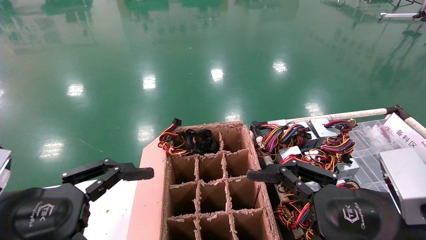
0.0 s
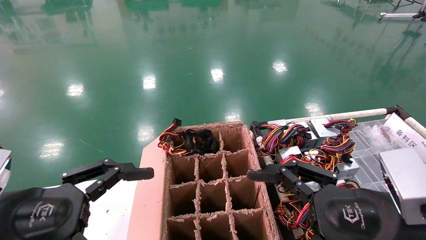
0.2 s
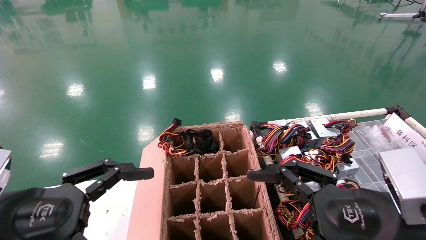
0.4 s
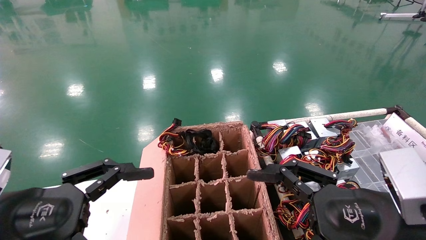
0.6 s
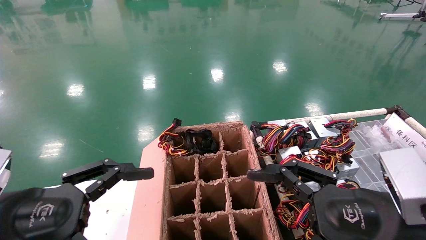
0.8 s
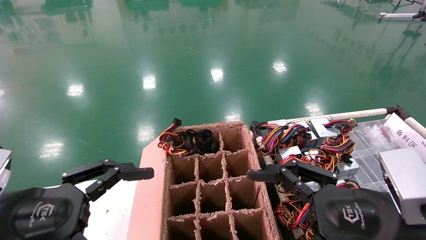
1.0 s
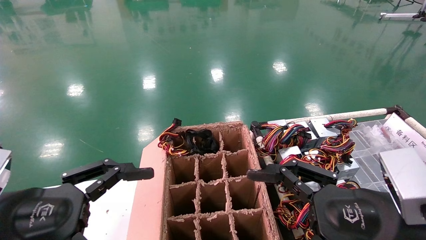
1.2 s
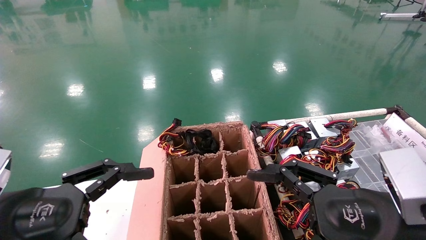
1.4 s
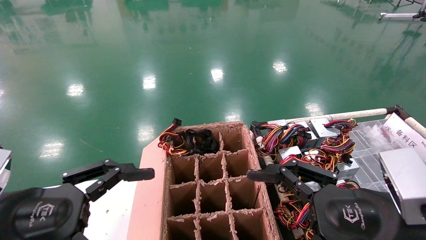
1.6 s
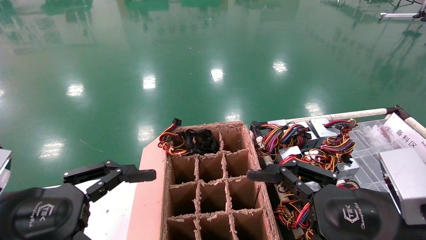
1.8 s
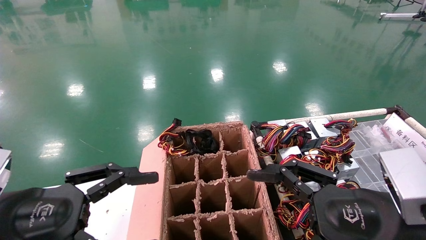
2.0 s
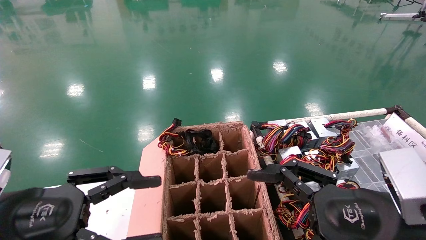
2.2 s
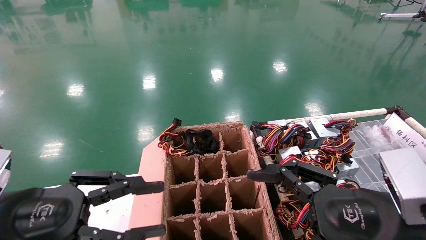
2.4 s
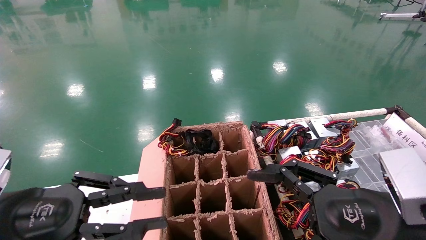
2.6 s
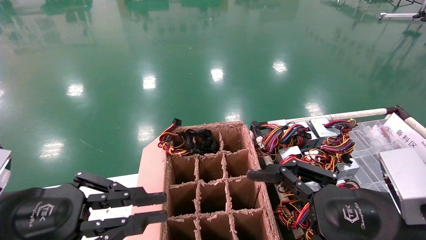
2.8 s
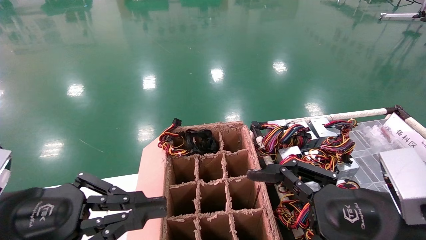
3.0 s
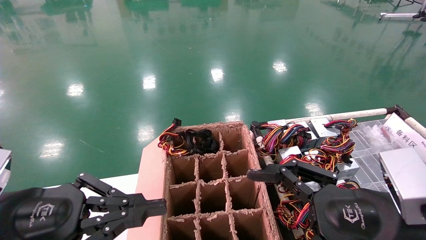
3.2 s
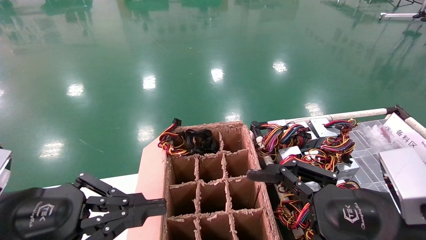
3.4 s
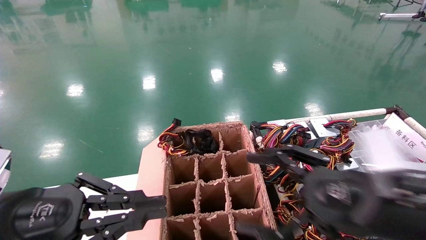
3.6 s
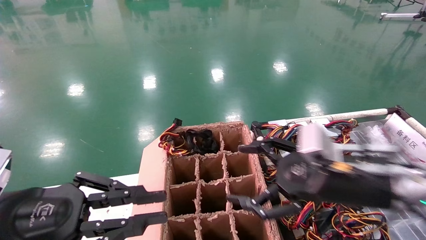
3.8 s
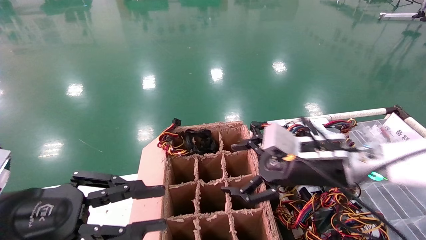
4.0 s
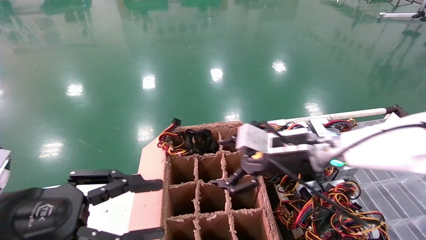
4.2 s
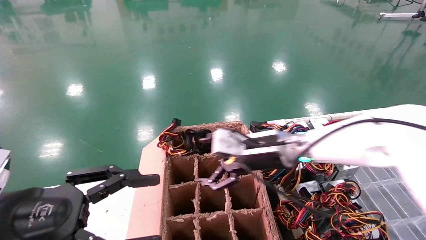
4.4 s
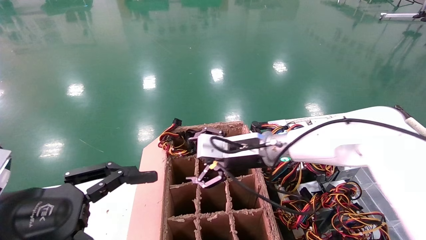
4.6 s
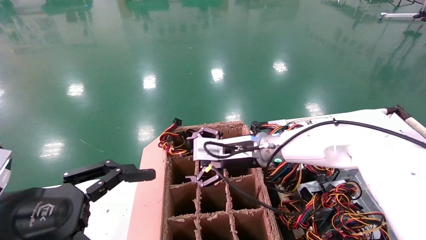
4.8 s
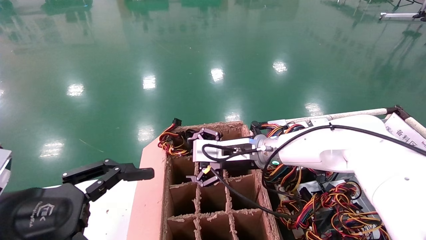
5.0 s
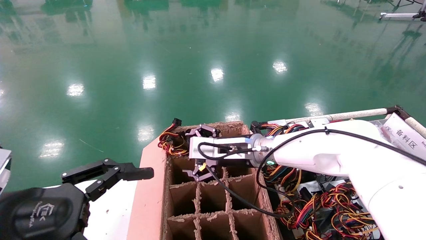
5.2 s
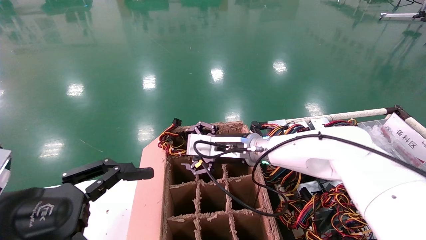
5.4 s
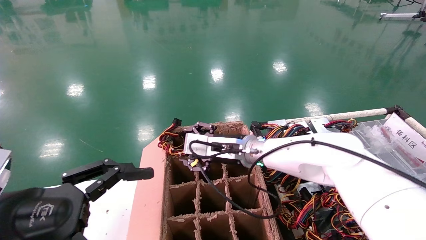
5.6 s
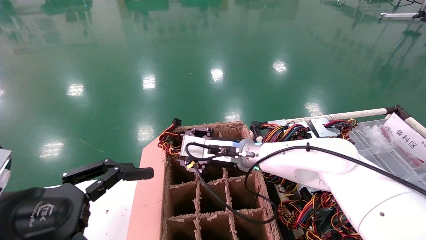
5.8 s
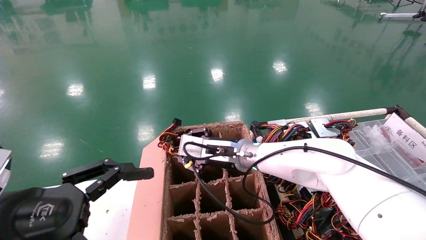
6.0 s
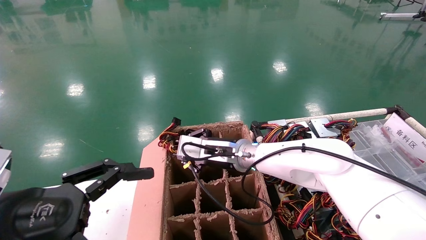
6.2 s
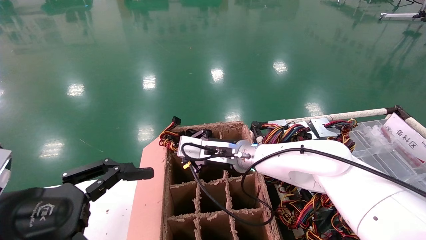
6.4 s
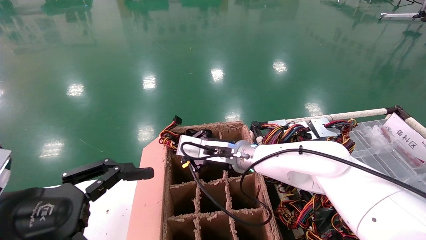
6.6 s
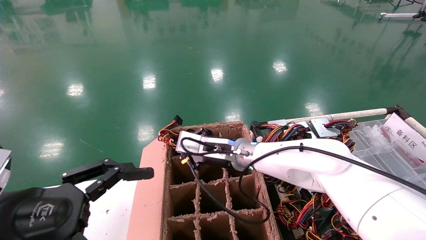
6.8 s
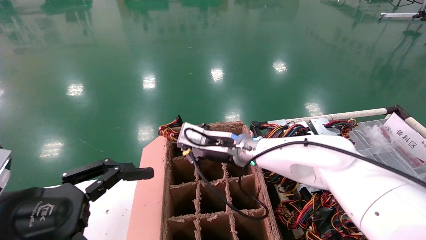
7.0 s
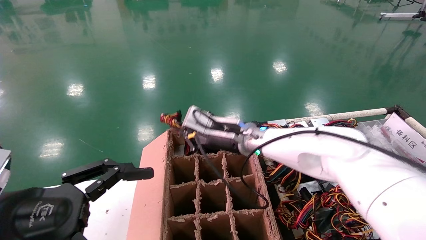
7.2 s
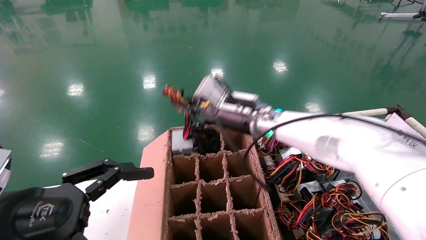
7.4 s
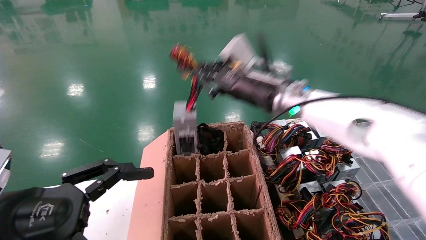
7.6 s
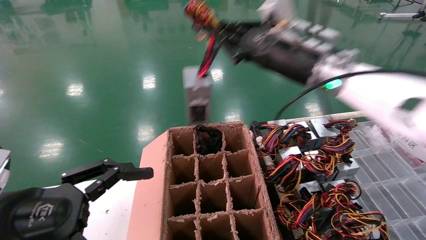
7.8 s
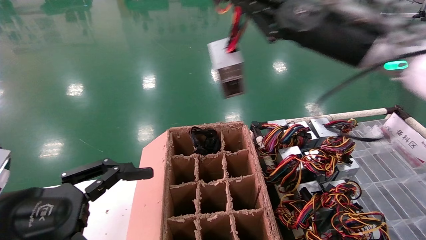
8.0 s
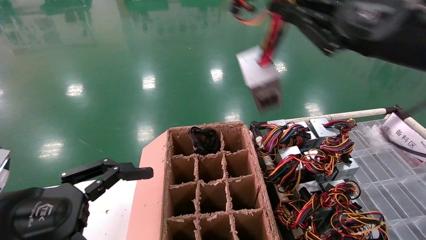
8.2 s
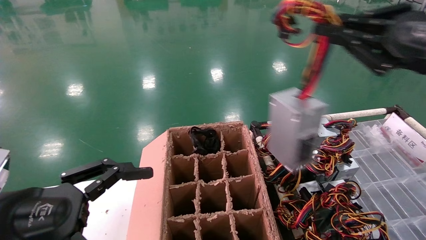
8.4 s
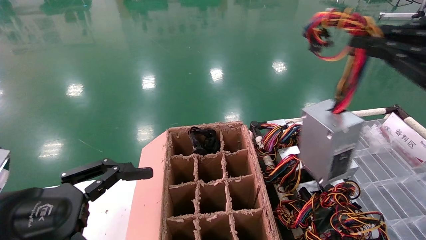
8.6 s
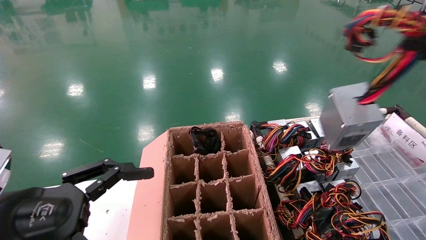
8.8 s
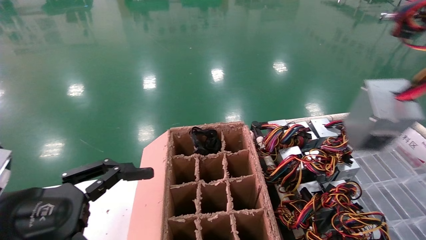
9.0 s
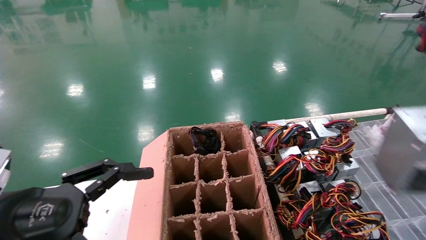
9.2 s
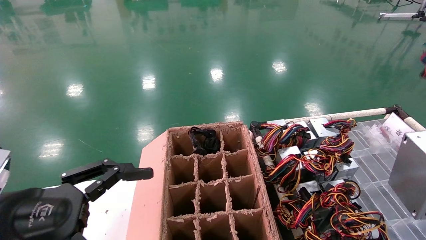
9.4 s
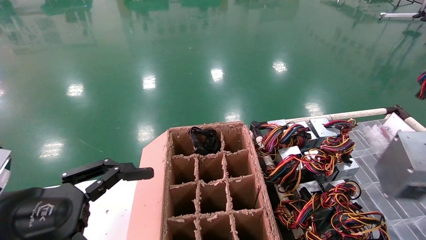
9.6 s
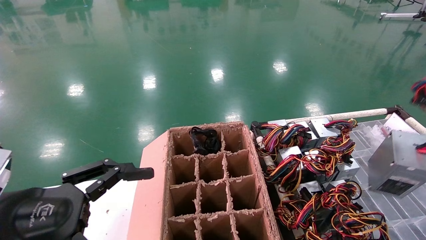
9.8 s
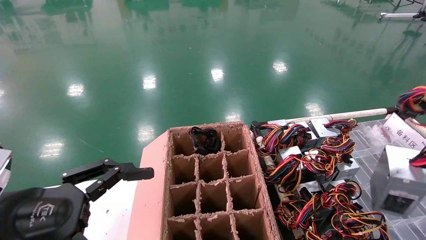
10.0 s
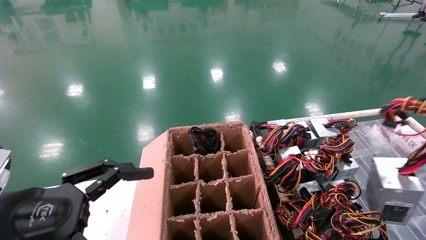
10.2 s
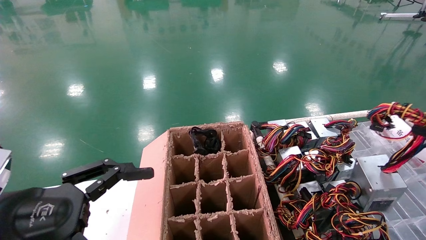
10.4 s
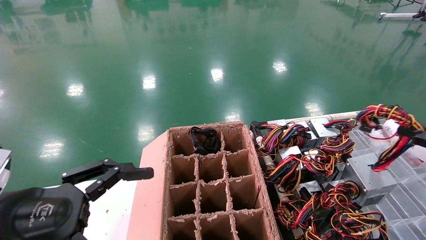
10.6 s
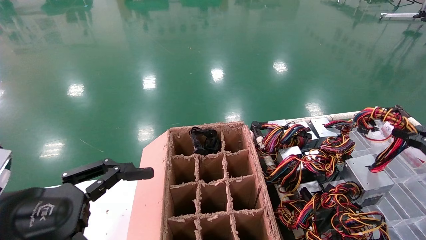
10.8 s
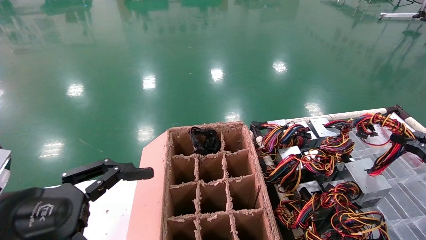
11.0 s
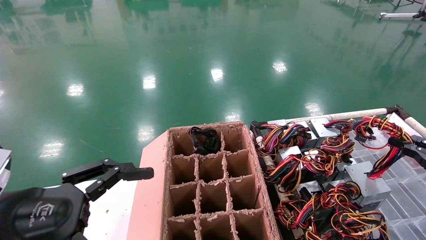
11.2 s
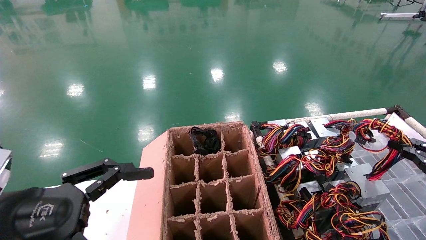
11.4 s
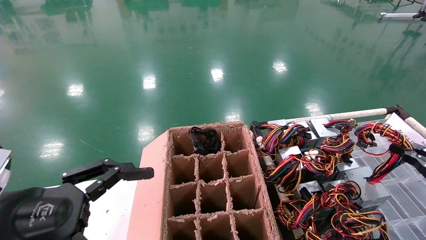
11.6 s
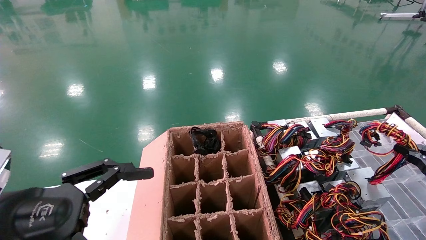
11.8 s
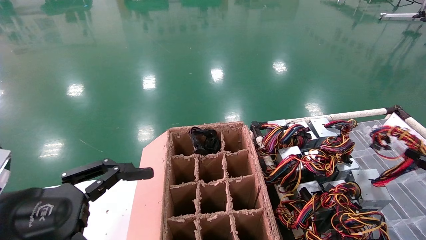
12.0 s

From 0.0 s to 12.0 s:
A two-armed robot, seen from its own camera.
Step, from 3.8 s to 6.8 s: Grab and lift the power supply from the large box.
From 0.0 s to 1.6 s: The two grippers keep their place.
From 1.6 s to 3.0 s: The left gripper closes up.
From 3.0 s to 4.4 s: The left gripper opens its fingers. Meanwhile the right gripper moves forward and to the left, roughly 25 cm.
From 4.4 s to 6.0 s: The left gripper opens its fingers. Meanwhile the right gripper heads to the left, covering roughly 10 cm, and closes its fingers.
From 6.0 s to 7.6 s: The right gripper shifts about 15 cm upward and to the right, and closes up.
From 7.6 s to 9.0 s: The right gripper heads to the right and backward, covering some 40 cm.
From 9.0 s to 10.4 s: The right gripper travels downward and forward by approximately 15 cm.
From 10.4 s to 12.0 s: The right gripper travels downward by about 10 cm.

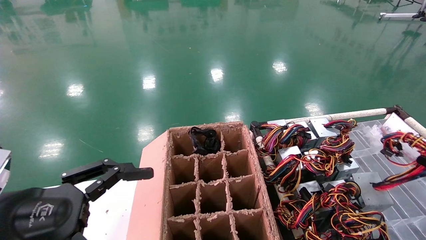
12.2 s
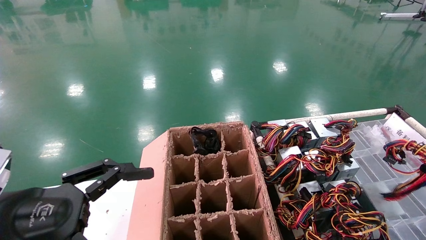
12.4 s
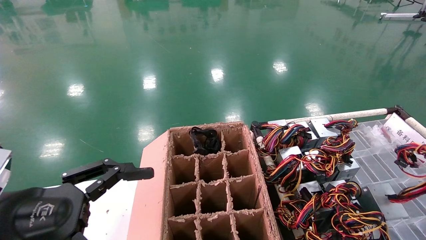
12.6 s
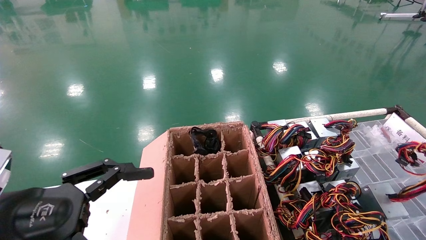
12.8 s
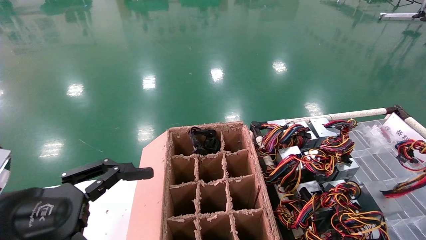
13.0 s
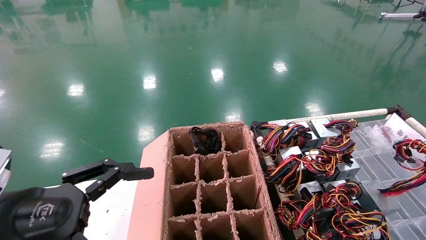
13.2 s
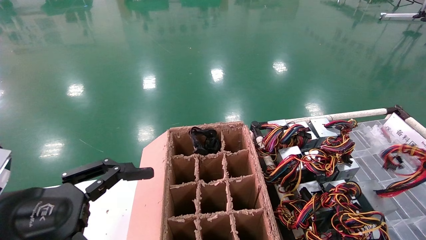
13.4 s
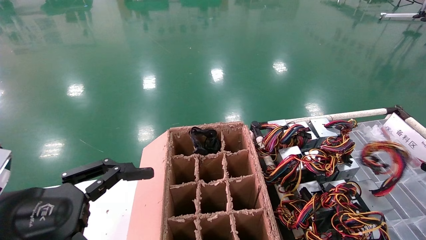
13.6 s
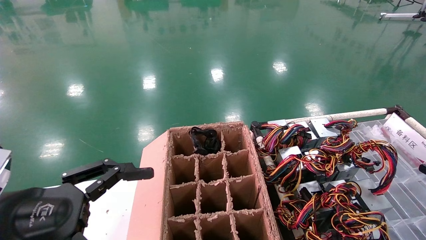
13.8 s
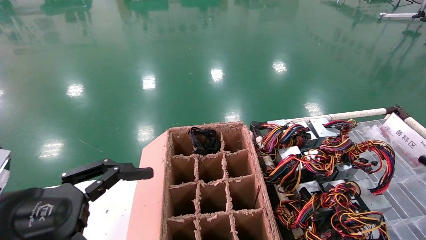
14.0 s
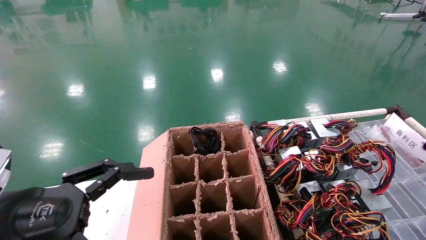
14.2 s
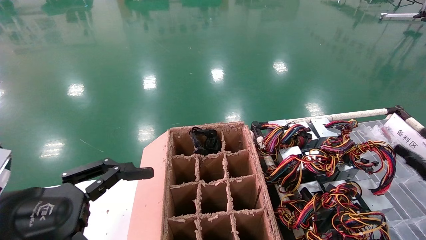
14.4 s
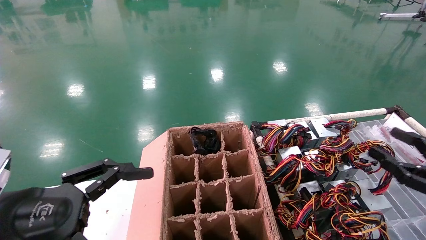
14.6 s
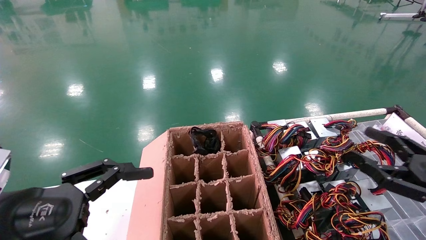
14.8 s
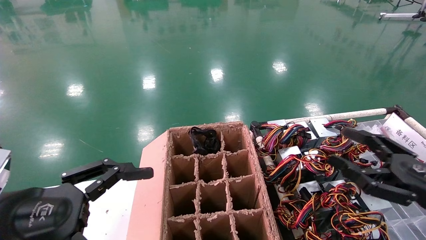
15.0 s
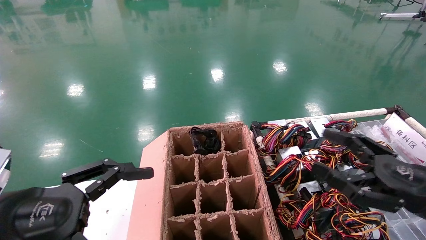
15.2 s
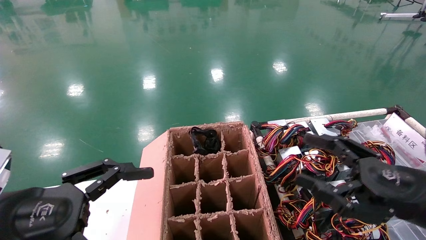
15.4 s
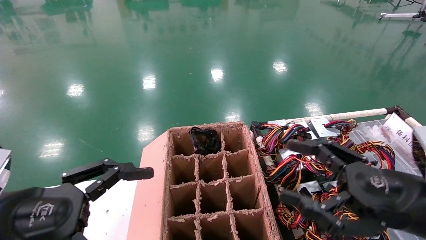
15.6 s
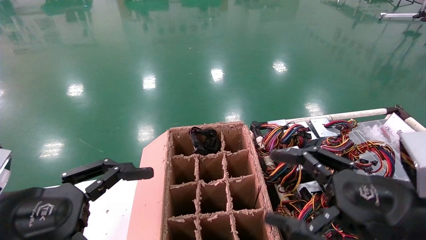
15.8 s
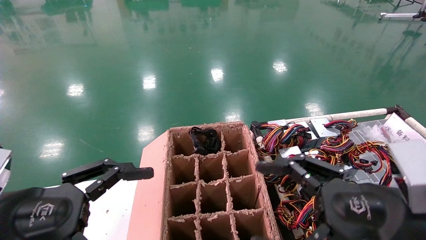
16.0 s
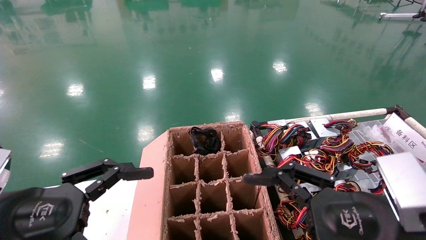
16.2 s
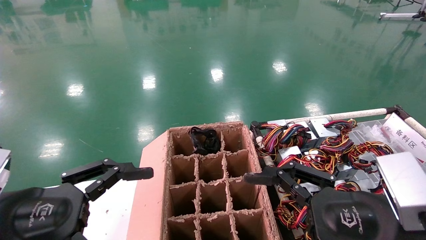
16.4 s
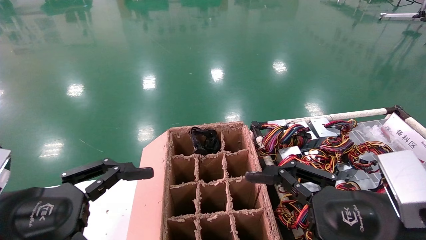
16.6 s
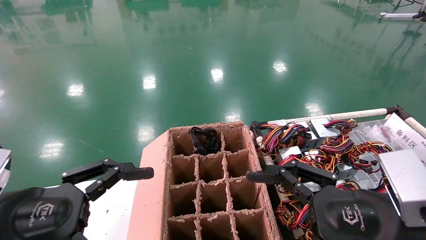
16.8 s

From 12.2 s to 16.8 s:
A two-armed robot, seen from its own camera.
From 12.2 s to 13.8 s: The grippers make only small movements.
From 13.8 s to 15.2 s: The right gripper moves to the left, roughly 20 cm, and opens.
From 15.2 s to 16.8 s: The right gripper is displaced to the left and backward by roughly 10 cm.
